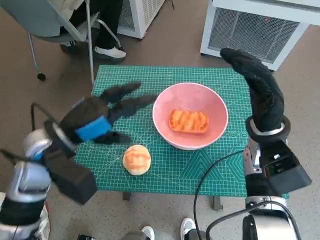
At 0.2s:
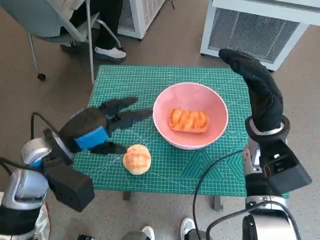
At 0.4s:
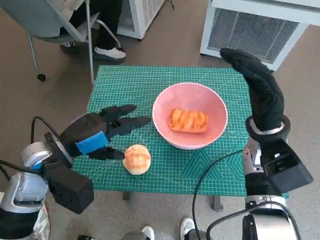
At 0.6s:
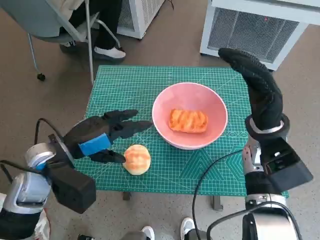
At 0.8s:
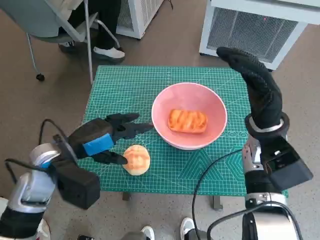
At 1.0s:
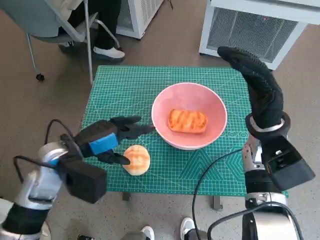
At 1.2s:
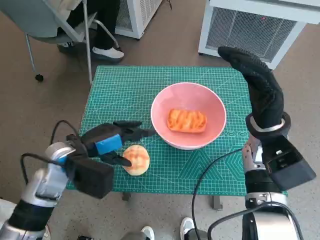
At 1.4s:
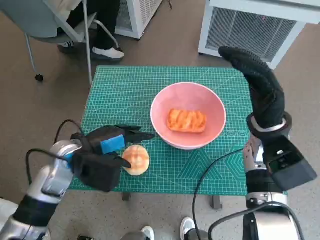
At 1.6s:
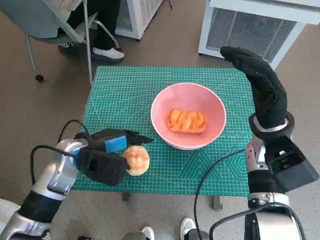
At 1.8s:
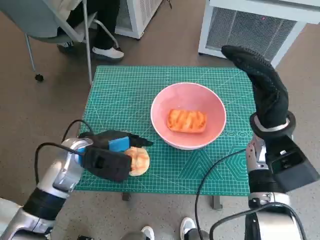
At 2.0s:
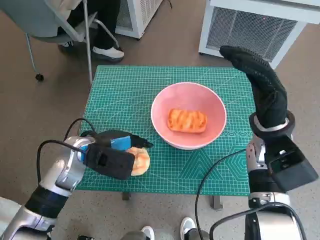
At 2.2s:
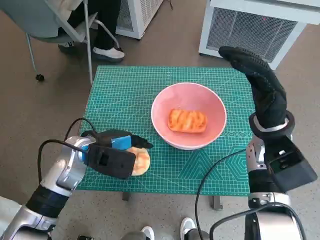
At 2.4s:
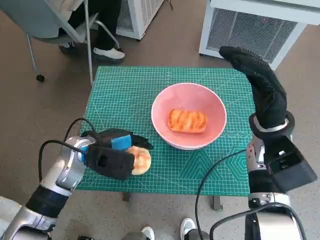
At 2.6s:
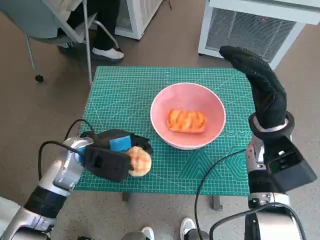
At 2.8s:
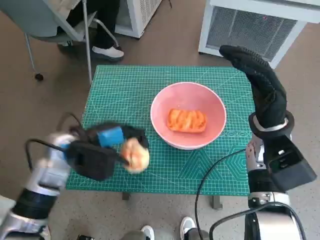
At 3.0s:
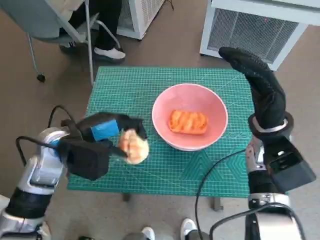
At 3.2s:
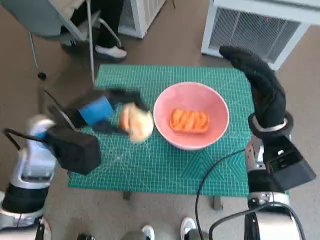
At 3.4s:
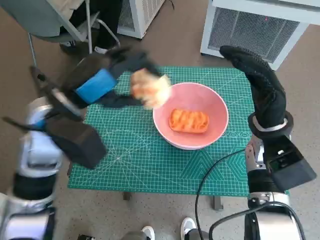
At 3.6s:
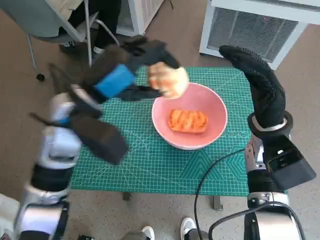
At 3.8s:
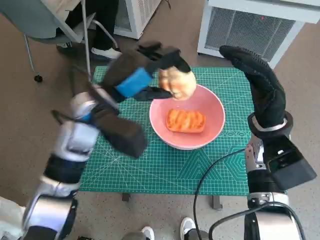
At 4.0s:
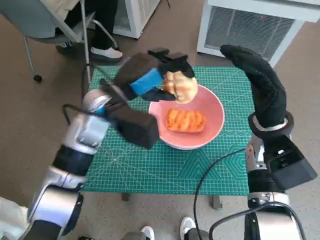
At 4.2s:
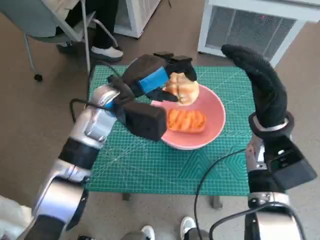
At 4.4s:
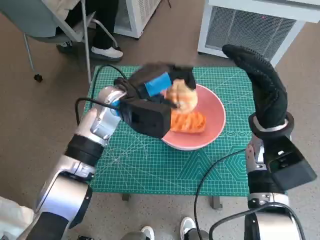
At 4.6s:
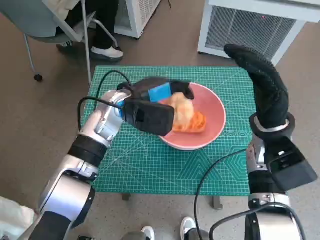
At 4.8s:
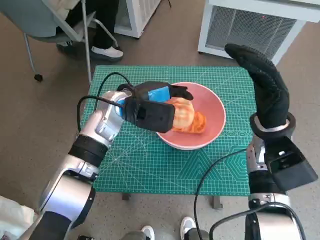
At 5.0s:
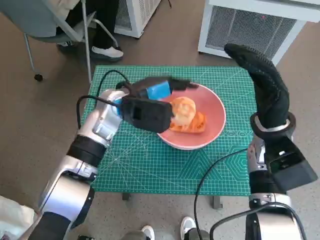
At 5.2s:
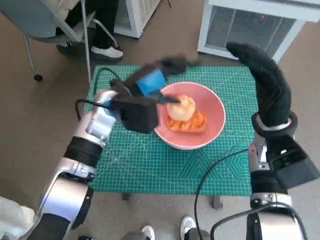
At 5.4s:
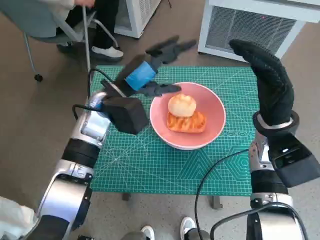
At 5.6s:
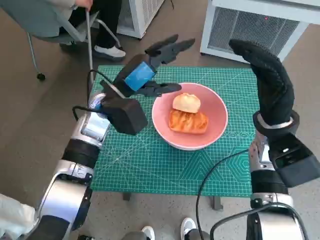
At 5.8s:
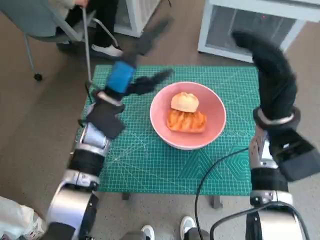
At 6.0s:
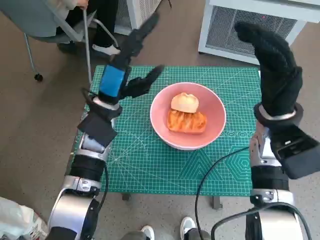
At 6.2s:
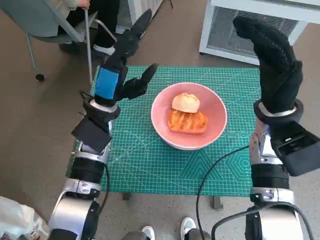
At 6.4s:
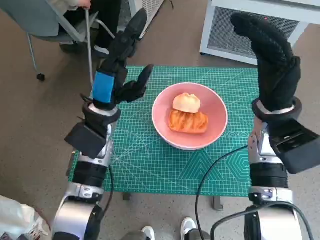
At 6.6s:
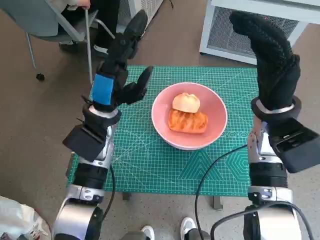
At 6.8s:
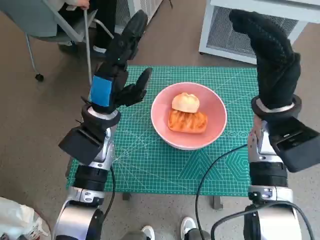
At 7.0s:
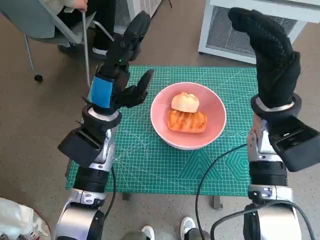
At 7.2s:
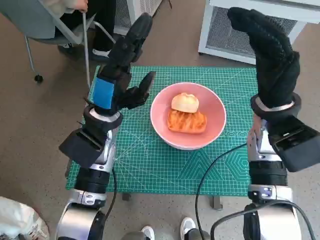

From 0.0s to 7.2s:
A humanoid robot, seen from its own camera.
Task of the whole recording: Push the bowl to the center of the table and put the bread into the bowl.
Step, from 0.0s to 2.4s: Grasp the round bread with left hand.
Step, from 2.8s to 5.0s: Place the round bread in pink bowl with left hand.
From 0.0s to 1.4s: The left hand travels downward by roughly 5 cm.
From 1.4s to 2.8s: There are only small adjustments of the hands.
From 2.8s to 4.4s: The left hand heads to the right, forward and upward, covering roughly 15 cm.

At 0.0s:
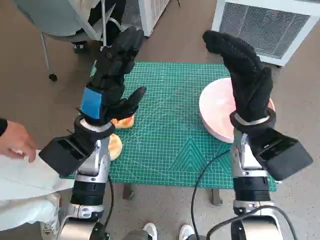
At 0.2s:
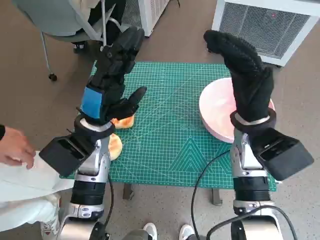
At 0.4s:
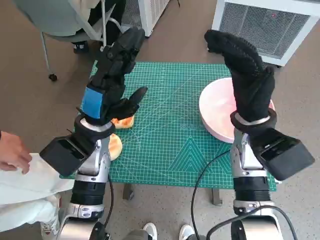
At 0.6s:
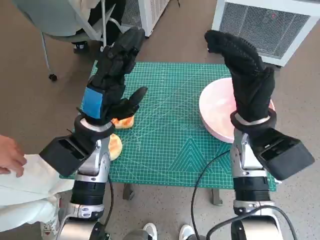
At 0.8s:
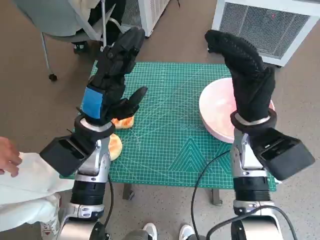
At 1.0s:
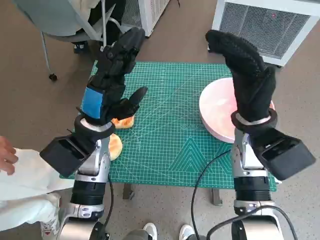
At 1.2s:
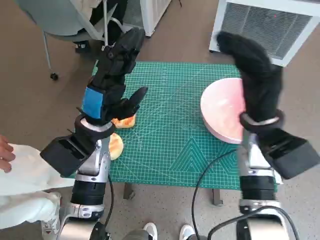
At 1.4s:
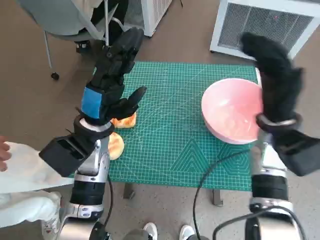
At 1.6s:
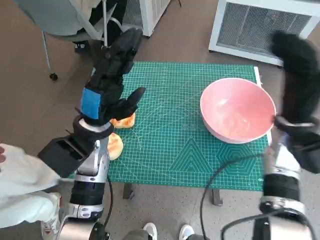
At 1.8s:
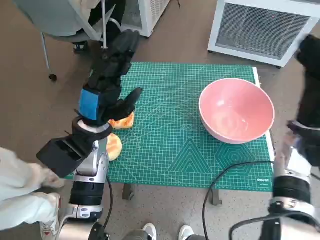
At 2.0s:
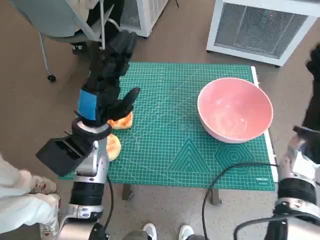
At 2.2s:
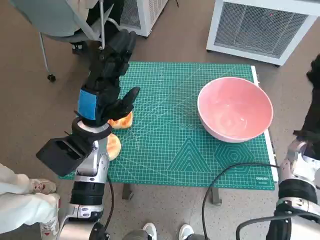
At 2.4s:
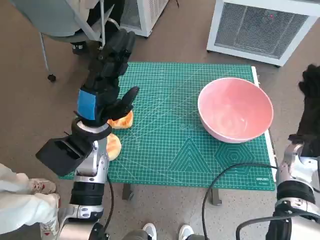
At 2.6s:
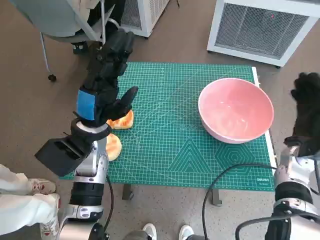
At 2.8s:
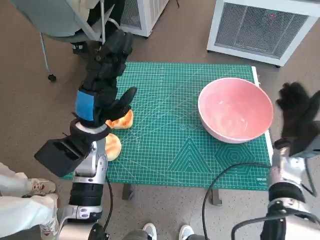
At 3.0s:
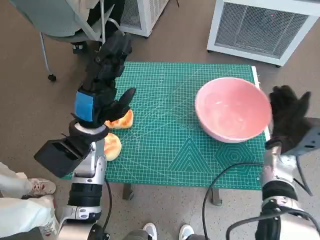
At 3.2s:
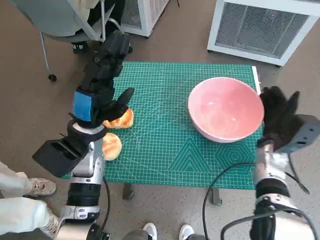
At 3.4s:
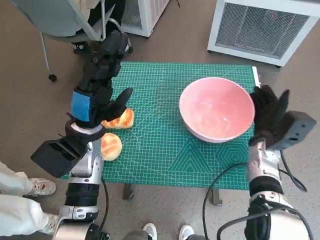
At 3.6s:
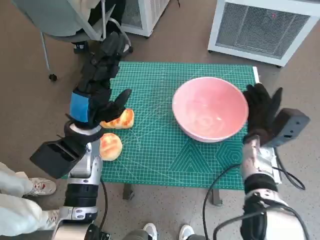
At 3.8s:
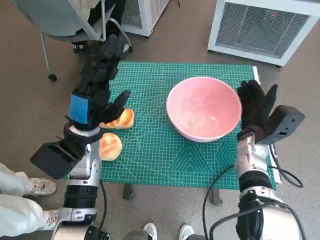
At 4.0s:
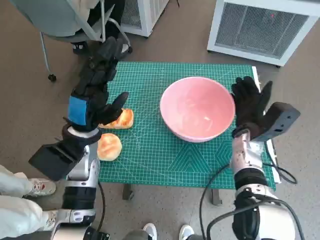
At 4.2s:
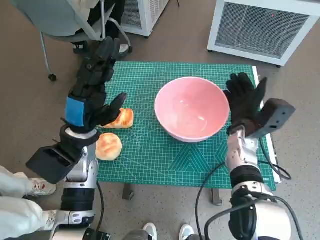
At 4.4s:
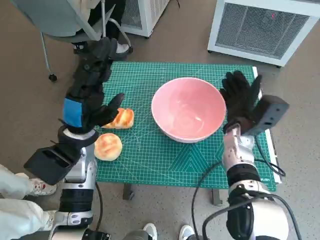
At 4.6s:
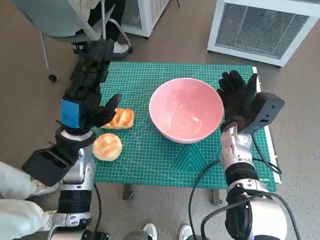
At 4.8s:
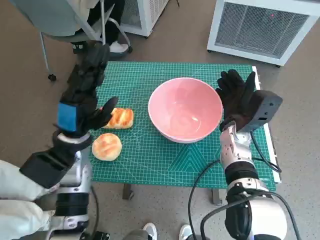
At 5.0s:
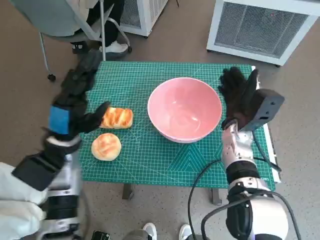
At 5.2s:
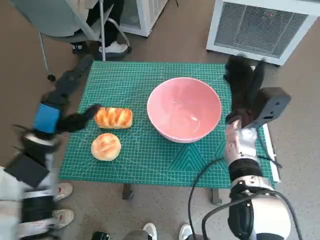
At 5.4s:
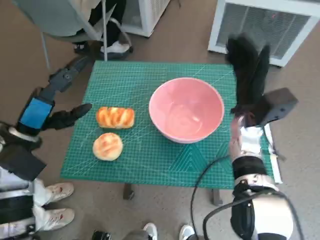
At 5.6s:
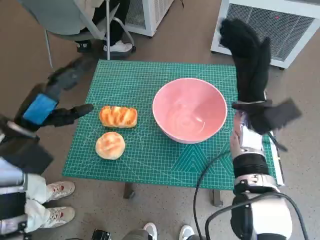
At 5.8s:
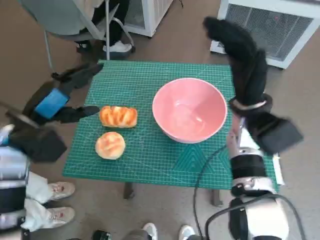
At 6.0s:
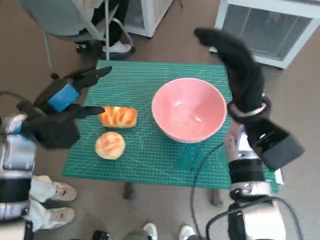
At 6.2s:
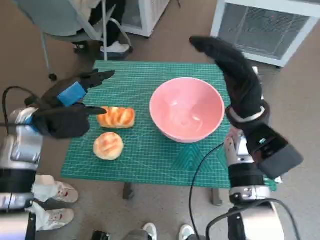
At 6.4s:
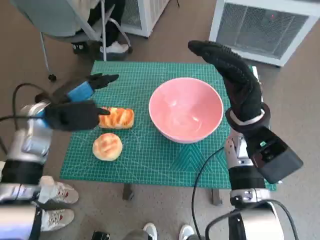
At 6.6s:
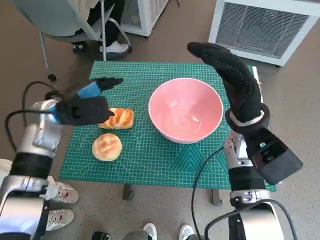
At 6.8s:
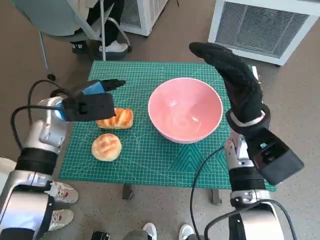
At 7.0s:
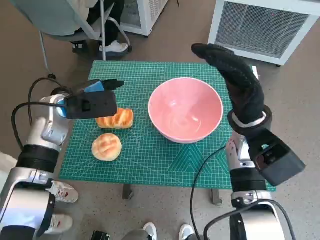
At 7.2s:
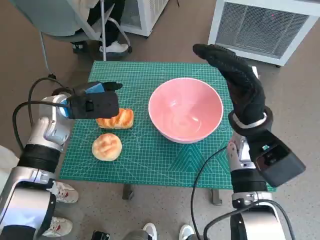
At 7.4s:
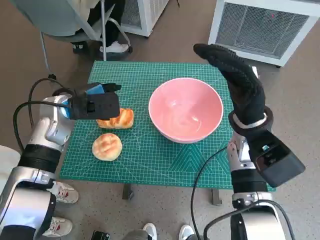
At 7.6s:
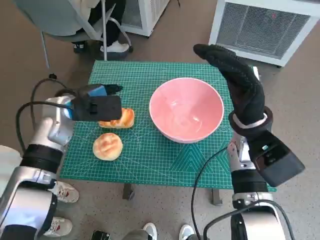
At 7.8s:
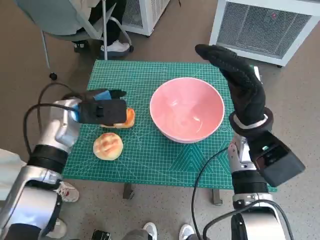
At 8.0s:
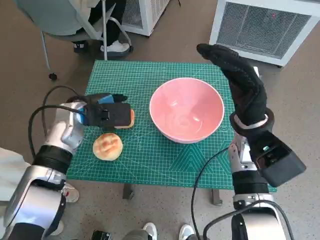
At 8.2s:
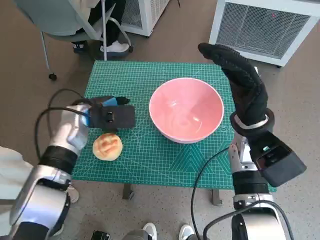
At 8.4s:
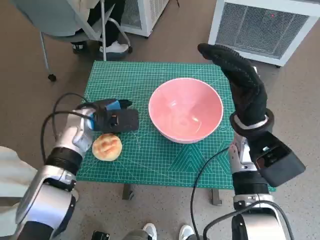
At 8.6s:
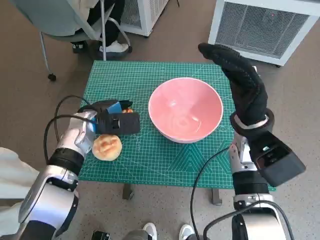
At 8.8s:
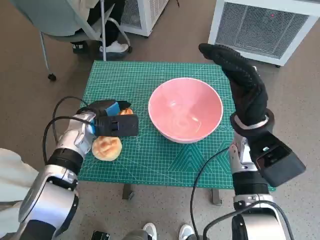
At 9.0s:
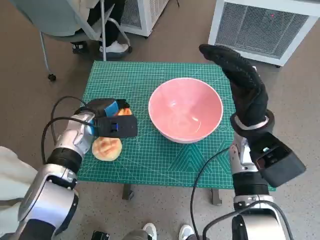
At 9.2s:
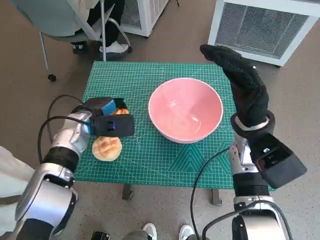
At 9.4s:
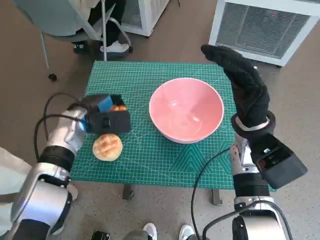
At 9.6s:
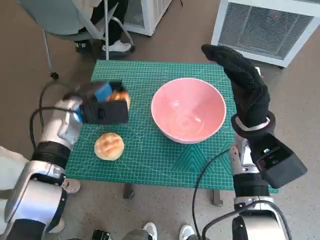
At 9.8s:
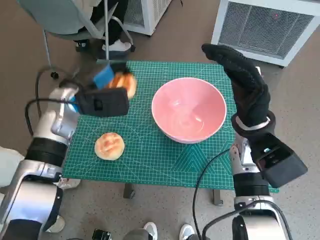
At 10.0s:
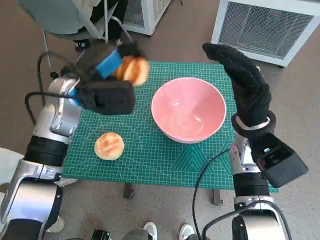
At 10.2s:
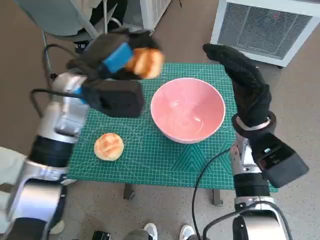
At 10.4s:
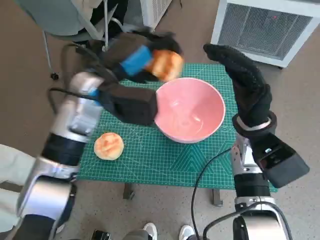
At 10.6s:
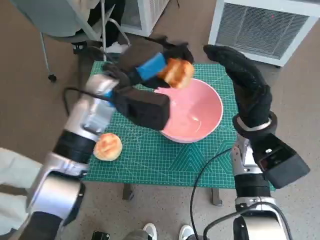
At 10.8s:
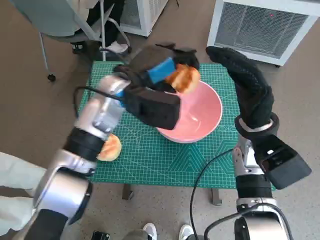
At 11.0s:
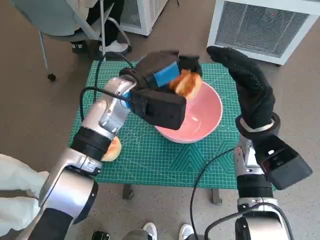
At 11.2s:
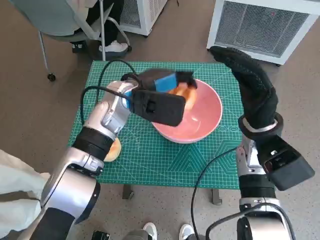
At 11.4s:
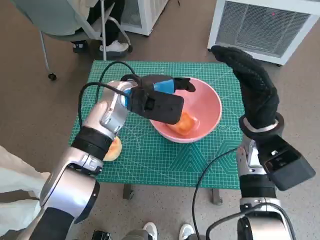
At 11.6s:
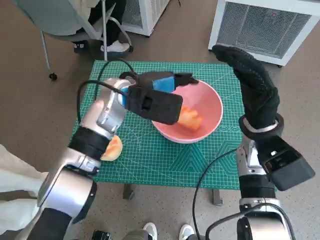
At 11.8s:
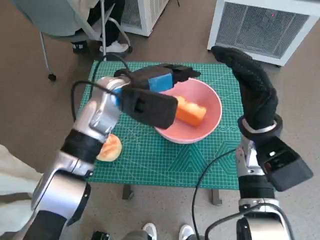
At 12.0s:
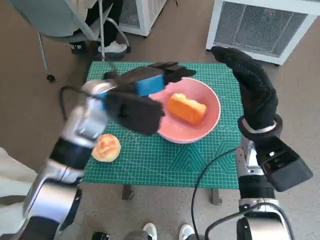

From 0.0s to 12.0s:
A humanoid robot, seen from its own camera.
Task of the whole recording: Push the bowl to the center of the table and put the bread into the bowl.
Step, from 0.0s to 5.4s: Move the pink bowl to the center of table with right hand.
Step, from 5.6s to 8.8s: Grasp the long bread with left hand.
Step, from 9.0s to 11.8s: Place the long bread in pink bowl with left hand.
From 1.6s to 3.0s: The right hand is displaced downward by some 10 cm.
From 3.0s to 4.4s: The right hand goes roughly 10 cm to the left.
From 4.4s to 6.0s: The left hand shifts roughly 10 cm to the left; the right hand is displaced upward by about 10 cm.
From 6.0s to 7.6s: The left hand shifts some 5 cm forward.
From 7.6s to 9.0s: The left hand shifts approximately 5 cm downward.
From 9.0s to 10.4s: The left hand is displaced upward and to the right by roughly 15 cm.

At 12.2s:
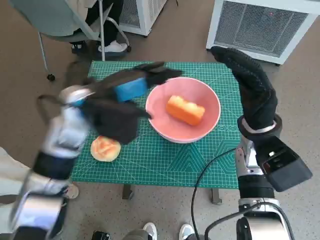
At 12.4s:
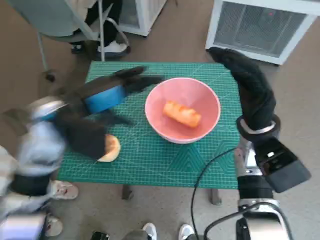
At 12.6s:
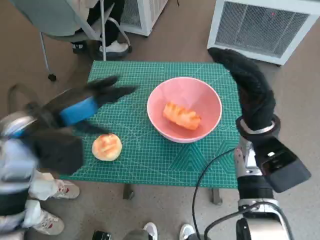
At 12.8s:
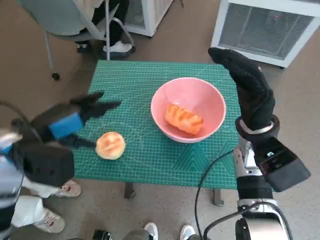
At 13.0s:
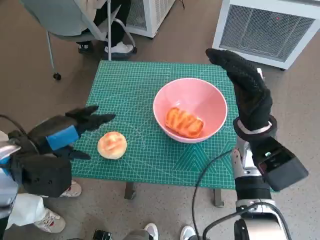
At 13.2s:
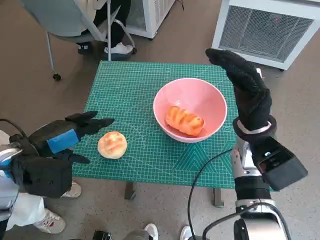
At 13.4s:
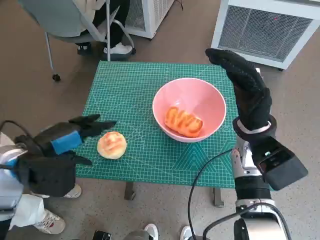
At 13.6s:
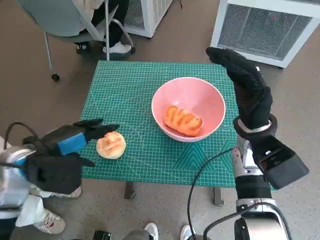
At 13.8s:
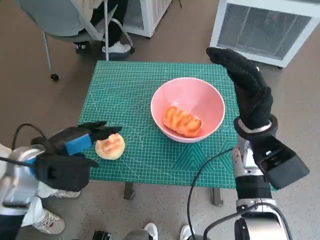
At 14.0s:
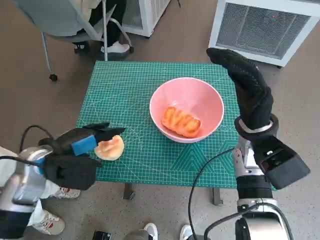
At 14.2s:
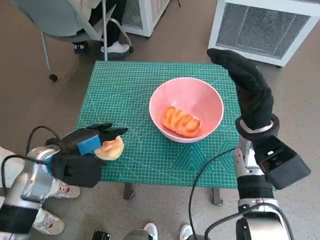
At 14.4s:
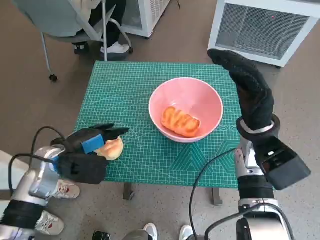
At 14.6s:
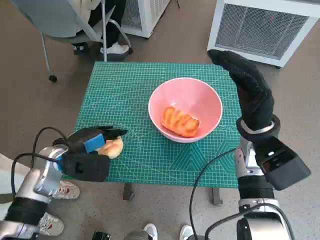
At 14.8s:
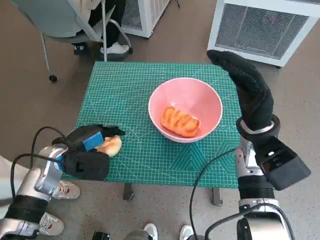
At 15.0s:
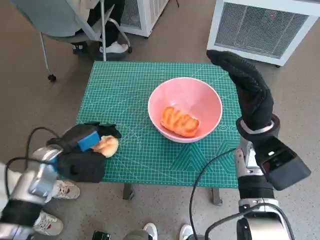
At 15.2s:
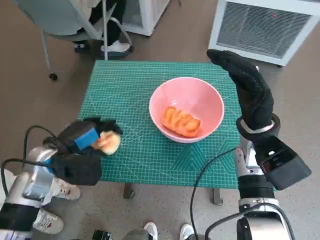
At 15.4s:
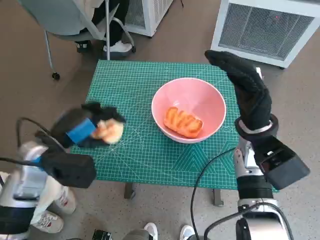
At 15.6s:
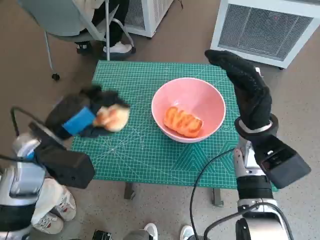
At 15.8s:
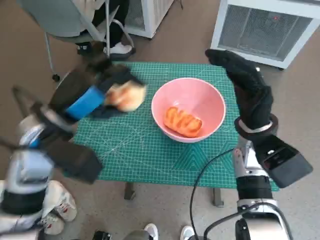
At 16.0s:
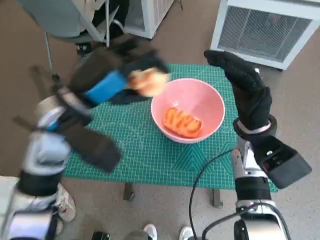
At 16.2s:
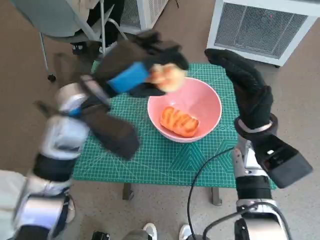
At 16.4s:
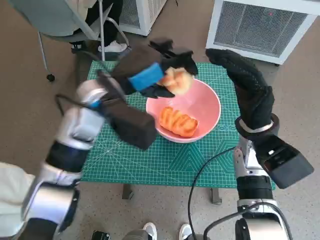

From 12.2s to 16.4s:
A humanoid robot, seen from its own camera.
Task of the whole recording: Push the bowl to the center of the table and put the bread into the bowl.
Step, from 12.2s to 14.6s: Grasp the round bread with left hand.
From 12.2s to 13.6s: The left hand travels to the left, backward and downward by some 15 cm.
From 13.6s to 15.0s: The left hand travels downward by about 5 cm.
From 15.0s to 16.4s: The left hand moves upward and to the right, some 20 cm.
